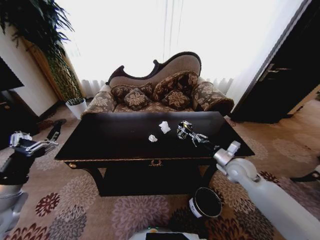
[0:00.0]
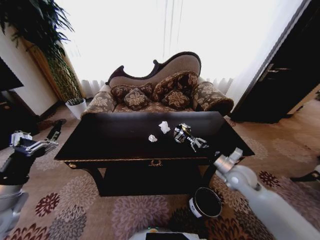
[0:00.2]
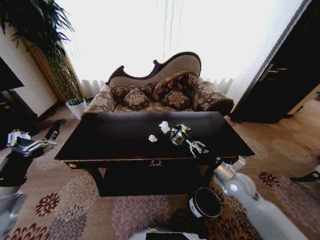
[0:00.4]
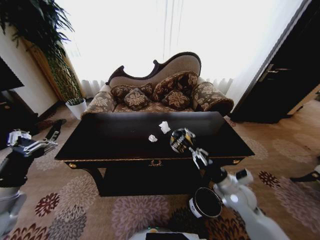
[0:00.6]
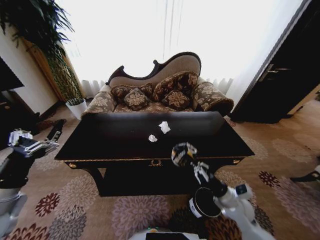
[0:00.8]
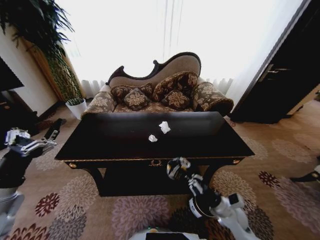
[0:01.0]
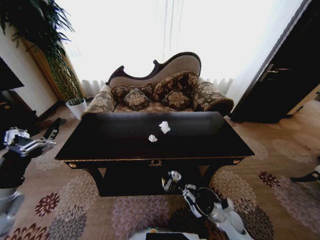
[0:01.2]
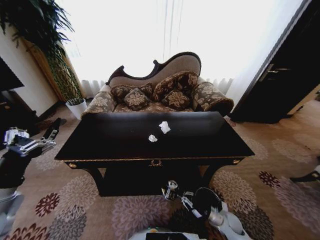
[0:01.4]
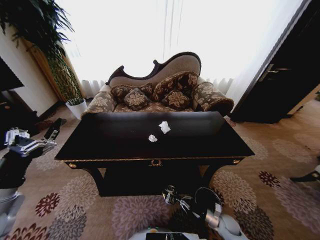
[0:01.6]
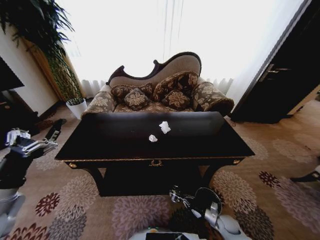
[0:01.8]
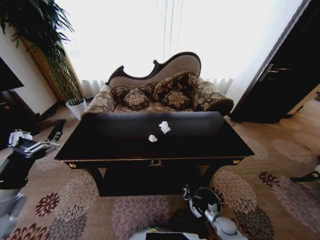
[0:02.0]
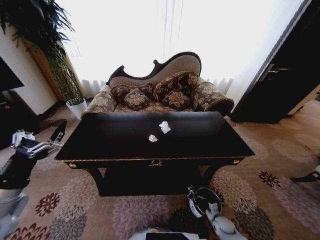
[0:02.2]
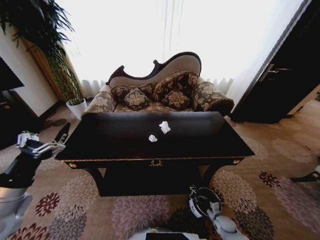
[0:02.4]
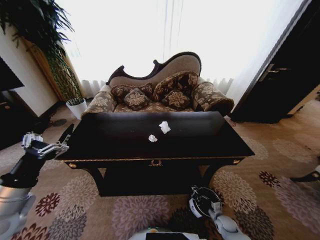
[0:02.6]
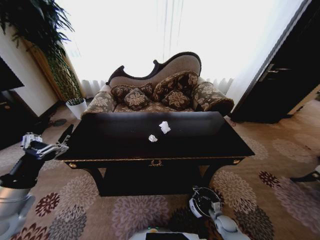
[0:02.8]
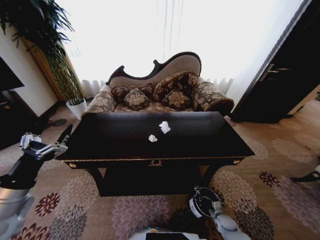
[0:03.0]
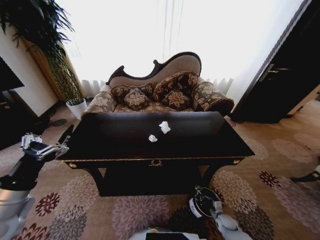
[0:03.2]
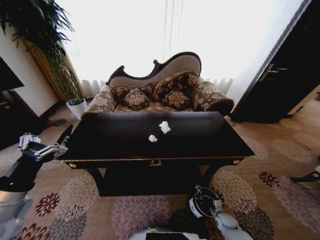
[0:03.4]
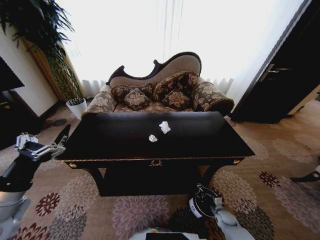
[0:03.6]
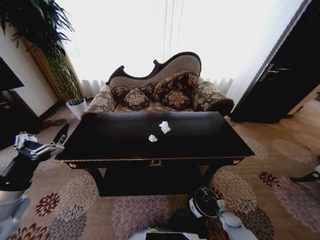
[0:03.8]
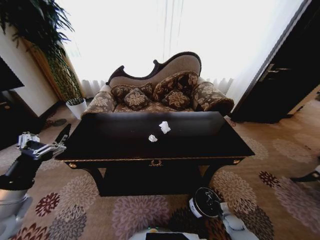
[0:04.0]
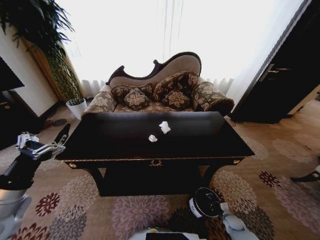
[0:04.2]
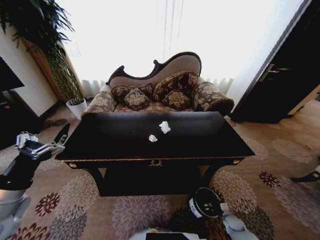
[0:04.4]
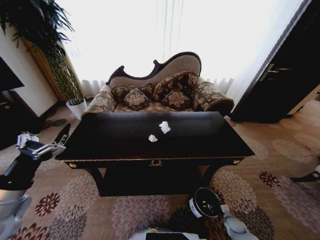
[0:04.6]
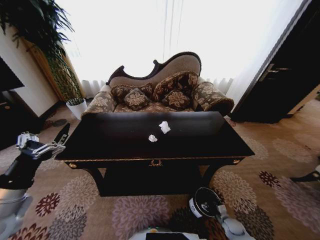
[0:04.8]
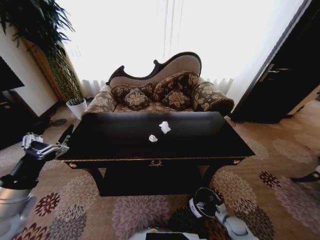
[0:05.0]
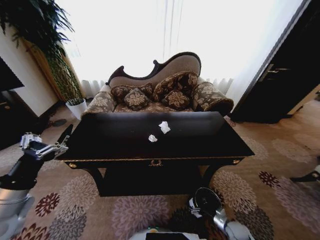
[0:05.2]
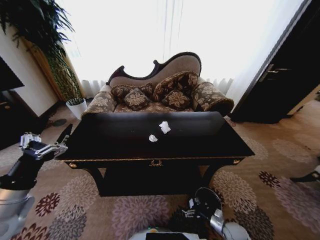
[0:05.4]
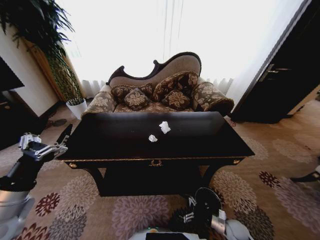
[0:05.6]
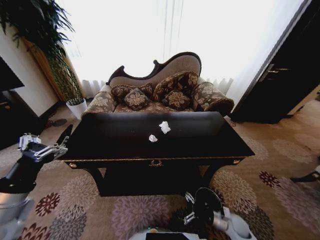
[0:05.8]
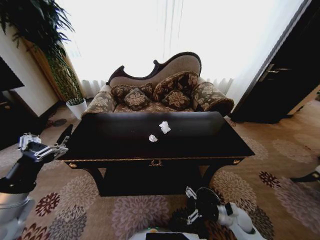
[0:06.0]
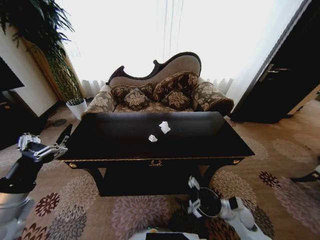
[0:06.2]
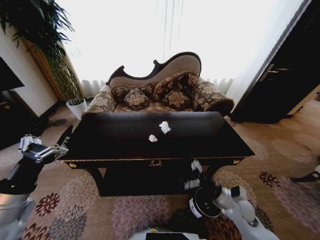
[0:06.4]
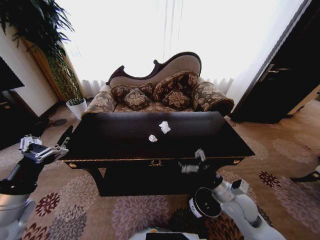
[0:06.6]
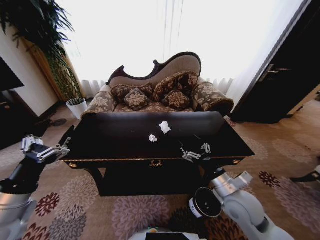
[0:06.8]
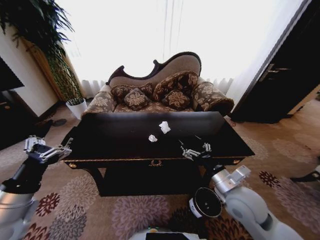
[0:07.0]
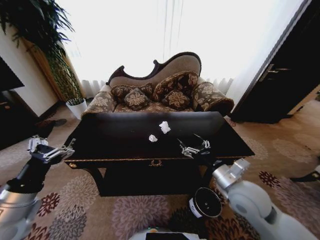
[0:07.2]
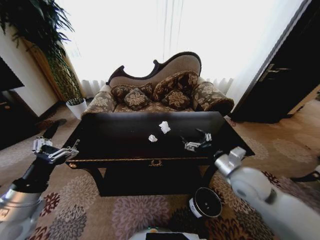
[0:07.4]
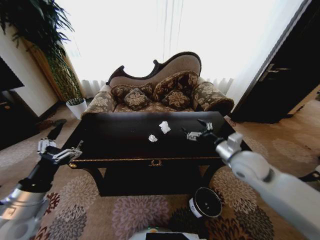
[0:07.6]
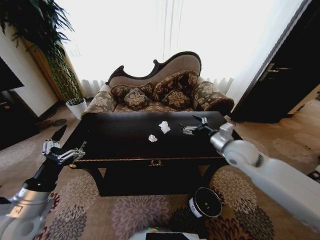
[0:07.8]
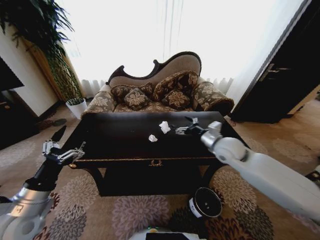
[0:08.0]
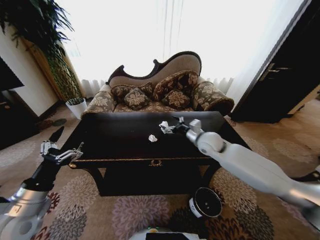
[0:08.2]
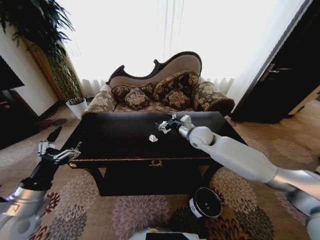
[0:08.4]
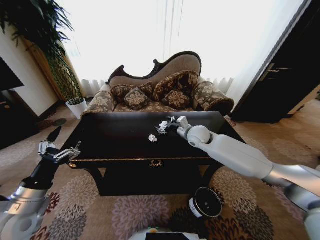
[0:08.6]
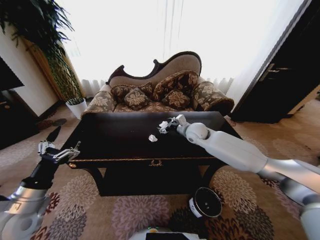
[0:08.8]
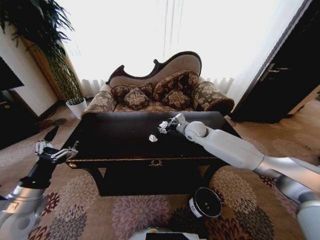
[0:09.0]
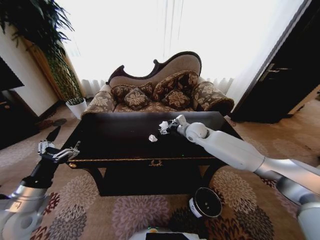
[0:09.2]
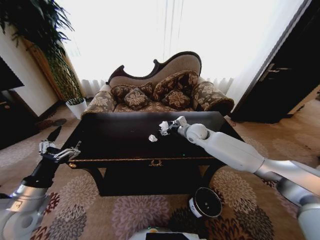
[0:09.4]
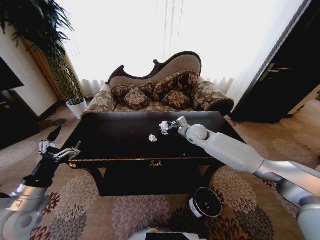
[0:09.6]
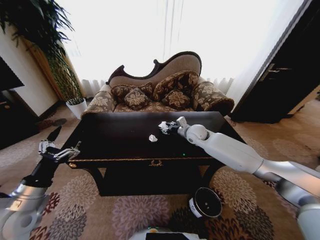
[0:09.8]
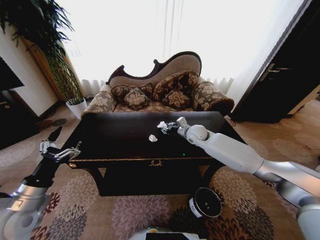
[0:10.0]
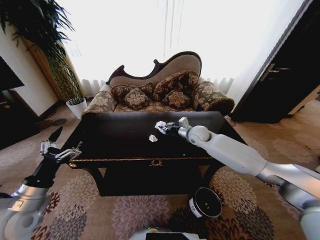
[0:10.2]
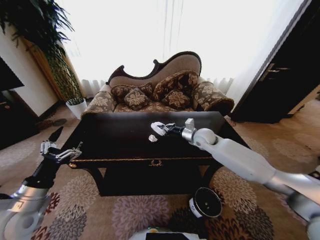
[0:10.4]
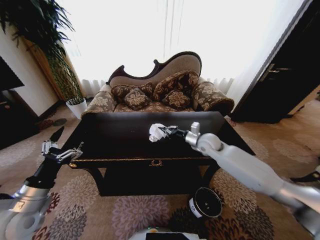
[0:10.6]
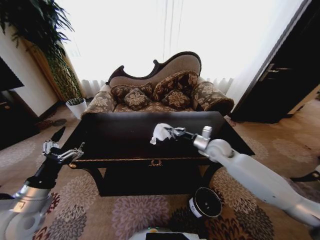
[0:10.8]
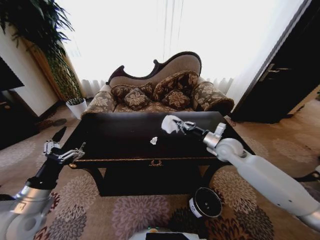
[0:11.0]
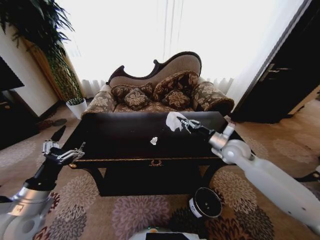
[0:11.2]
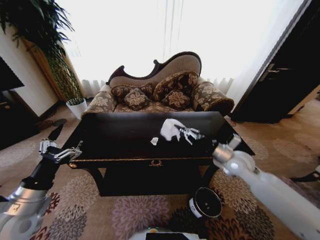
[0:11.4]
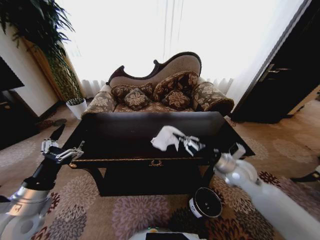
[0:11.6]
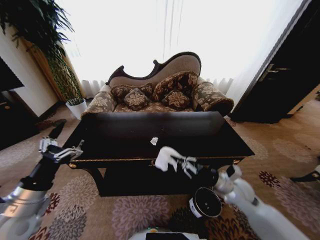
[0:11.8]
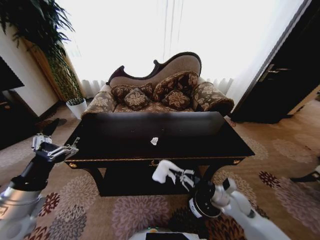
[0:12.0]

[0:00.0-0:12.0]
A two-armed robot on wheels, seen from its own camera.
Task of the whole recording: Move to the front of the table and place the trash on the table into the trash bin.
0:00.0 to 0:01.6: The right gripper heads downward and backward, covering some 35 cm.
0:01.6 to 0:03.0: The right gripper travels downward by about 5 cm.
0:03.0 to 0:04.4: The right gripper is displaced to the right by about 5 cm.
0:04.4 to 0:06.0: The right gripper travels upward and to the left by some 20 cm, and opens up.
0:06.0 to 0:07.6: The right gripper goes roughly 25 cm upward.
0:07.6 to 0:09.0: The right gripper heads forward and to the left, covering approximately 25 cm.
0:09.0 to 0:10.4: The right gripper changes place by some 5 cm, and closes its fingers.
0:10.4 to 0:12.0: The right gripper travels backward and downward by about 25 cm.

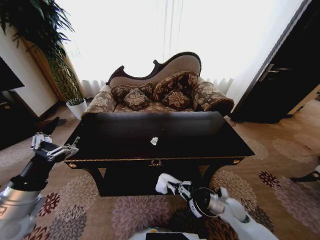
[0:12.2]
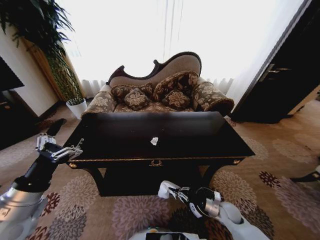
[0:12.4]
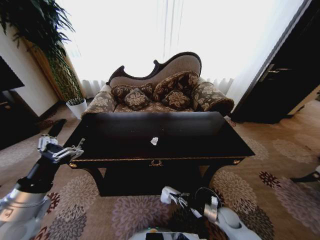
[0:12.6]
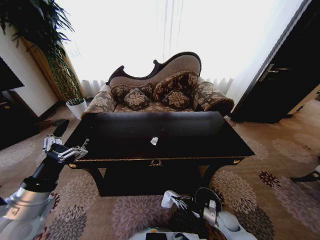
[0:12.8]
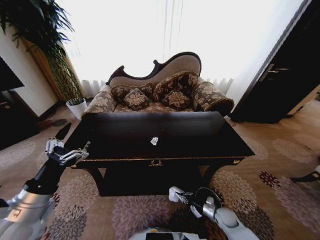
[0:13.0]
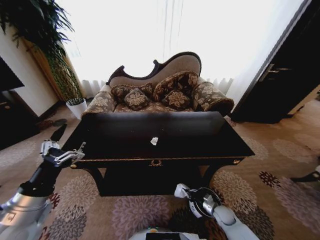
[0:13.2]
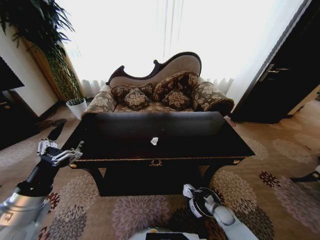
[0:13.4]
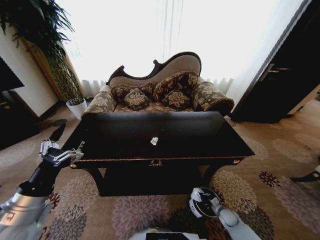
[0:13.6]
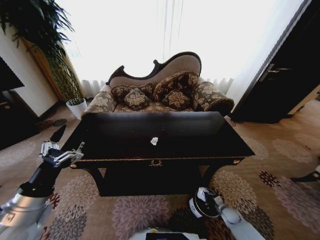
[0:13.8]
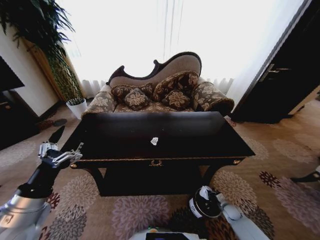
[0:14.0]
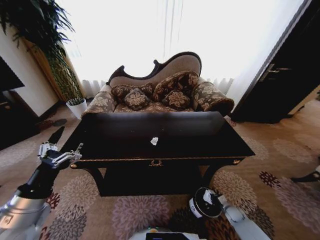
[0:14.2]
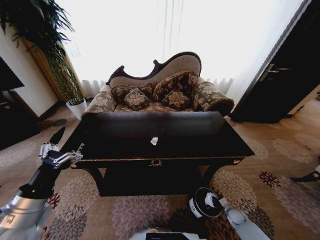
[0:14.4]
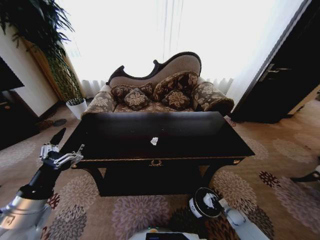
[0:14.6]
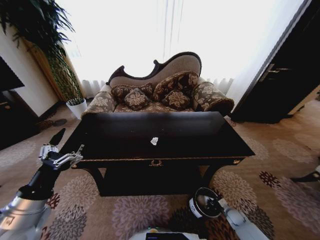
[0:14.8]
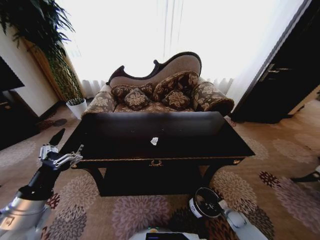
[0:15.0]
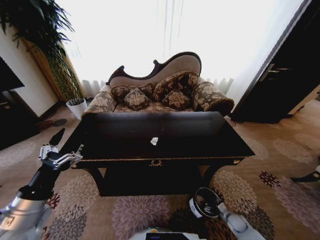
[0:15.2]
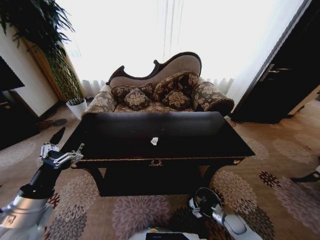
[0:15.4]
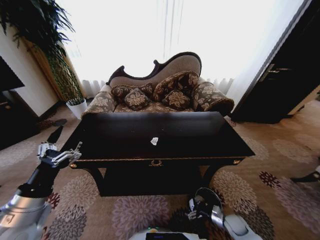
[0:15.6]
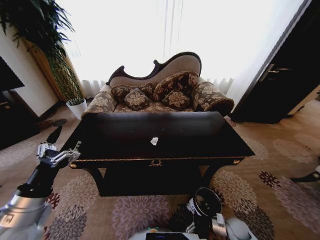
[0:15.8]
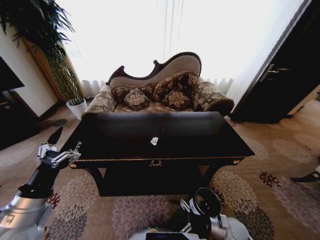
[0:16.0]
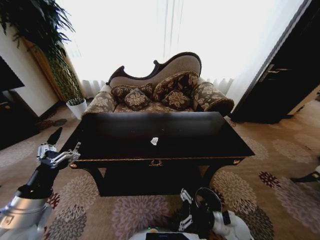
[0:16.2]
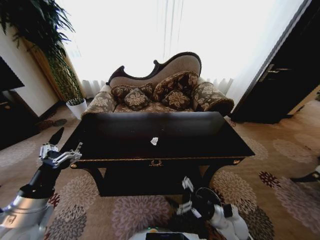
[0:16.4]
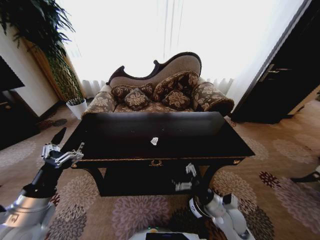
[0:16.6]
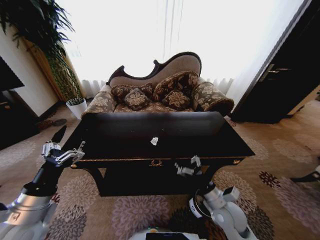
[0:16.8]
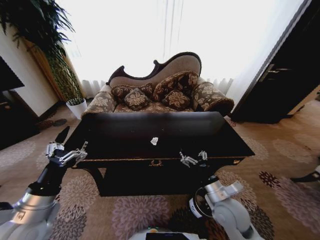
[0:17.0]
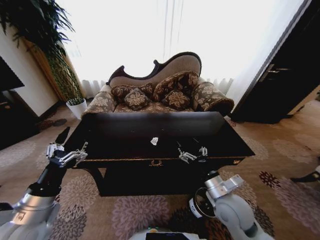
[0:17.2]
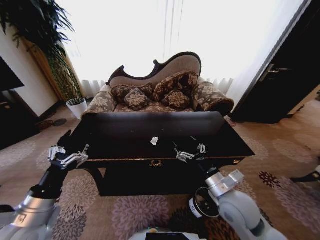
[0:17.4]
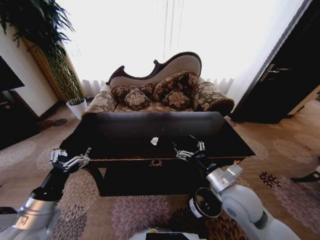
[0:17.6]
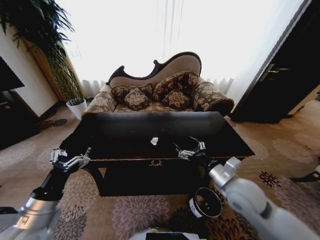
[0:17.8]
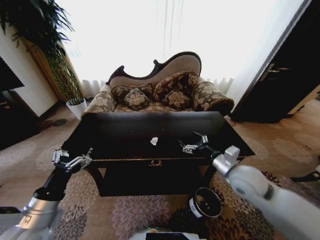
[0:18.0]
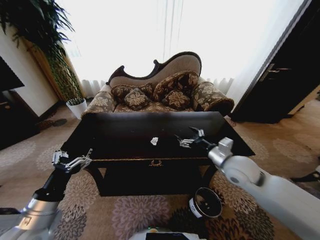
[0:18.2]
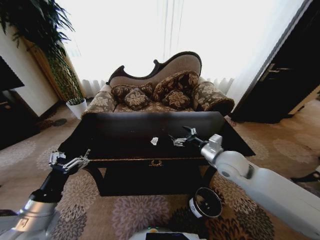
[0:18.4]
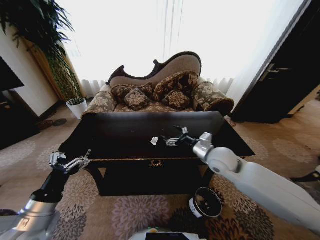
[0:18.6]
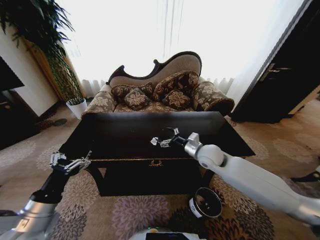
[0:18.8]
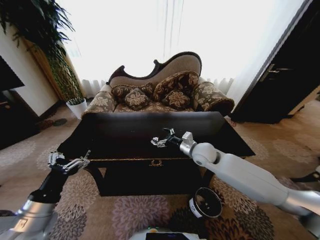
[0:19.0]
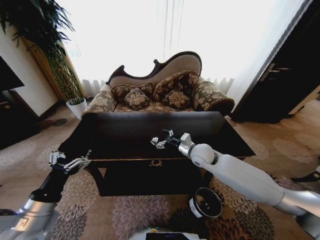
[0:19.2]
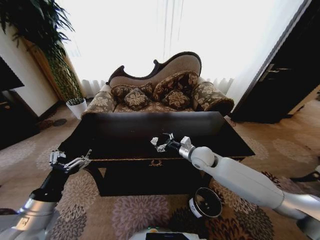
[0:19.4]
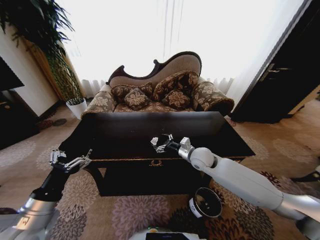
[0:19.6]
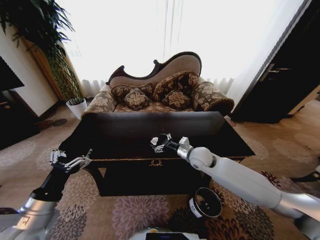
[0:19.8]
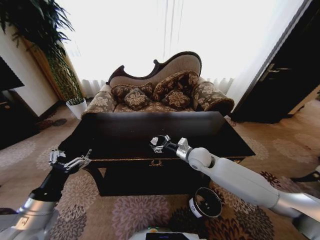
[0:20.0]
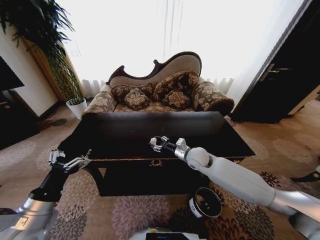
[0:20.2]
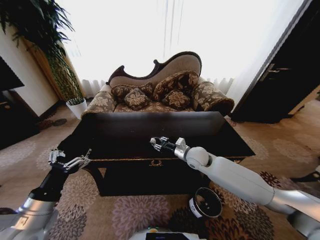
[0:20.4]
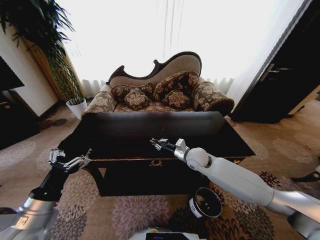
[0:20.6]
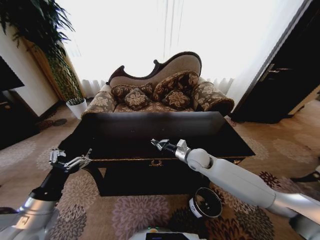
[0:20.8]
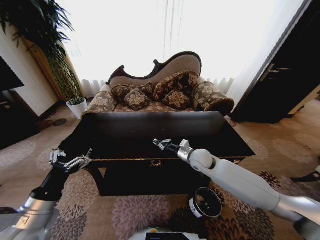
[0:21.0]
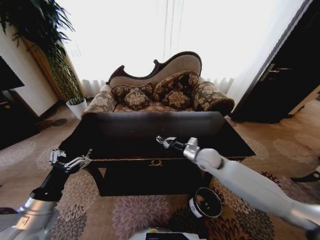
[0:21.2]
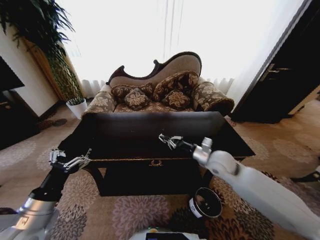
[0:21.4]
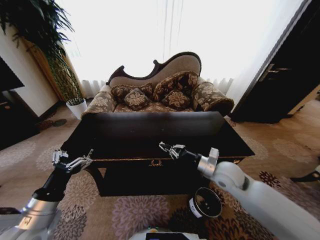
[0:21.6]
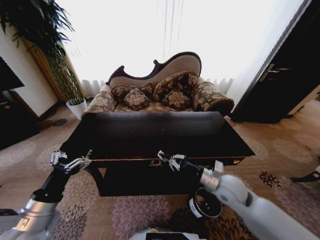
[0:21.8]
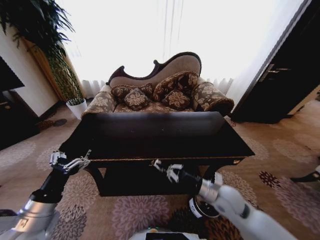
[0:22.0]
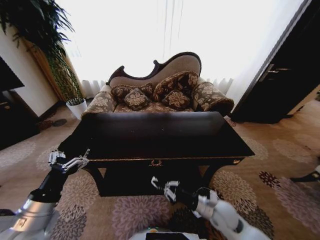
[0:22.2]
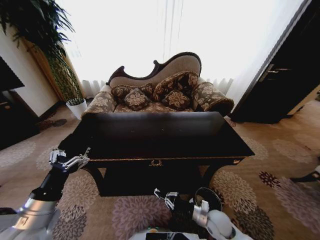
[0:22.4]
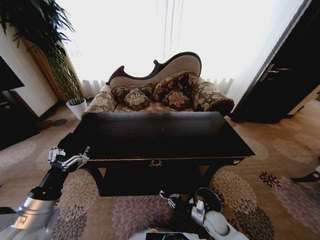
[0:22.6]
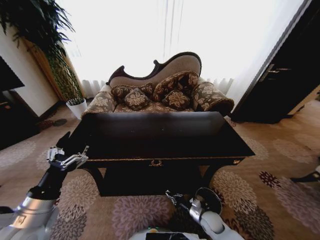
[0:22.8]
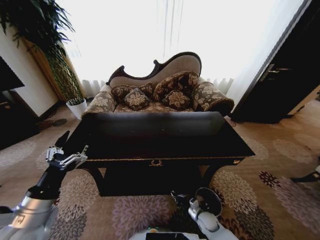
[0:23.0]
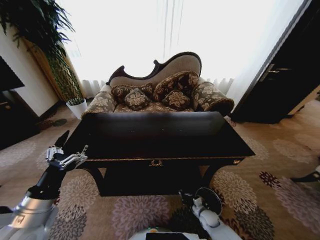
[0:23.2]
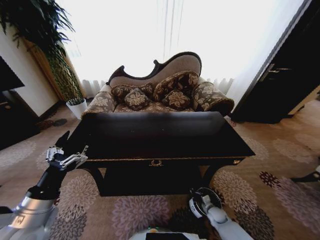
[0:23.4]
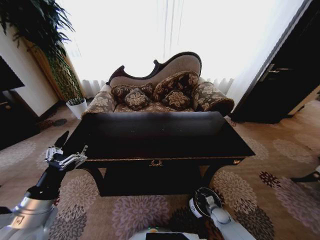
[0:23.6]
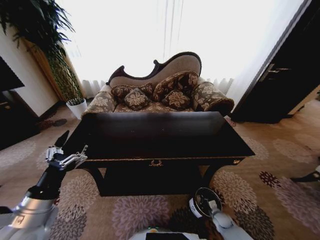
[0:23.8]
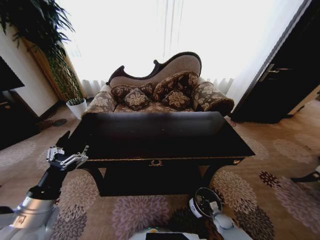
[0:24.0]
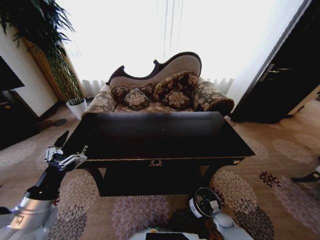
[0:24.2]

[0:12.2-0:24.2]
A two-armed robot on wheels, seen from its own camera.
Task of the whole recording: Move to the front of the table and place the trash on the table into the trash bin.
0:12.2 to 0:13.8: The right gripper travels downward and to the right by some 20 cm.
0:13.8 to 0:15.2: The right gripper opens.
0:15.2 to 0:16.6: The right gripper moves upward and to the left, some 30 cm.
0:16.6 to 0:18.2: The right gripper travels upward and forward by approximately 20 cm.
0:18.2 to 0:19.8: The right gripper travels forward, to the left and downward by some 15 cm.
0:19.8 to 0:21.2: The right gripper closes.
0:21.2 to 0:22.6: The right gripper moves downward and backward, about 30 cm.
0:22.6 to 0:24.2: The right gripper is displaced downward and to the right by roughly 20 cm.
